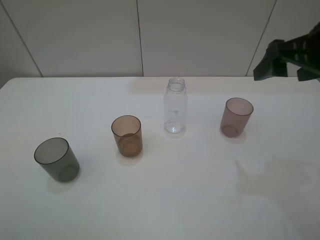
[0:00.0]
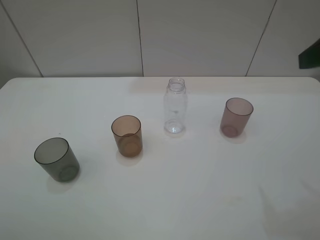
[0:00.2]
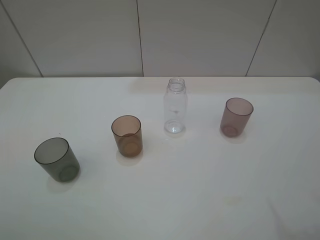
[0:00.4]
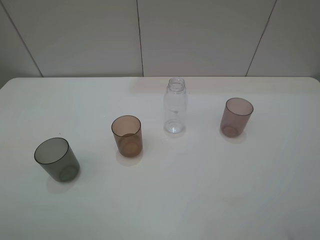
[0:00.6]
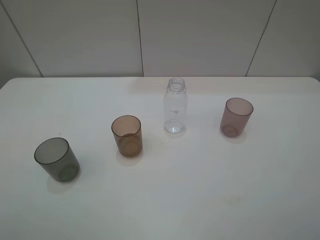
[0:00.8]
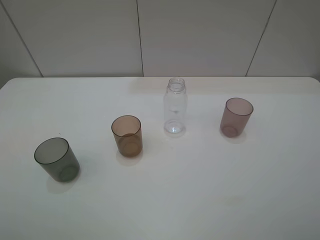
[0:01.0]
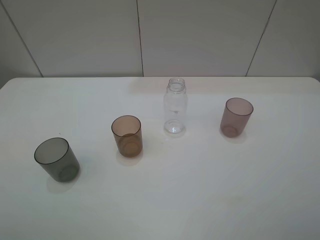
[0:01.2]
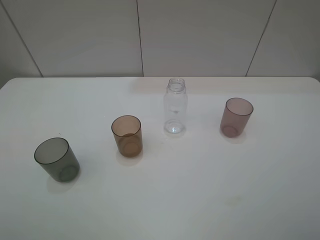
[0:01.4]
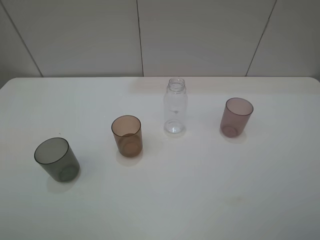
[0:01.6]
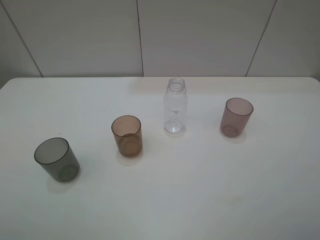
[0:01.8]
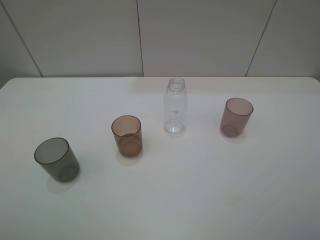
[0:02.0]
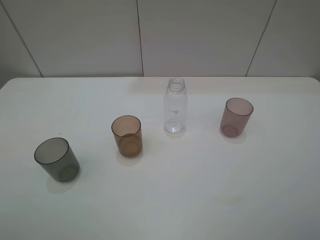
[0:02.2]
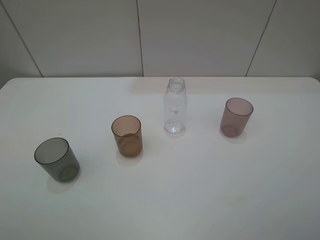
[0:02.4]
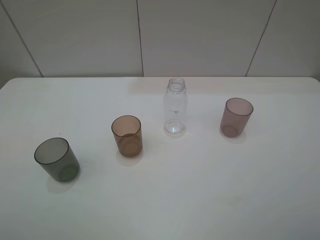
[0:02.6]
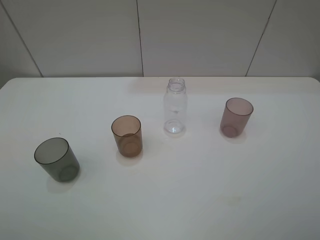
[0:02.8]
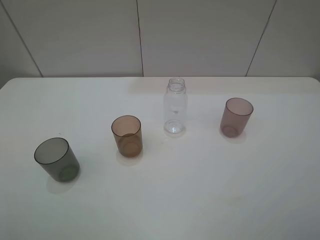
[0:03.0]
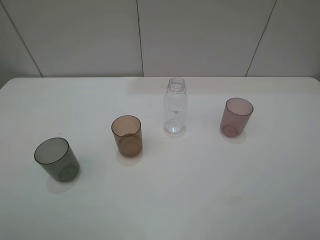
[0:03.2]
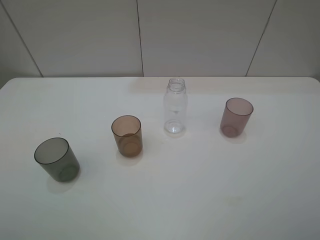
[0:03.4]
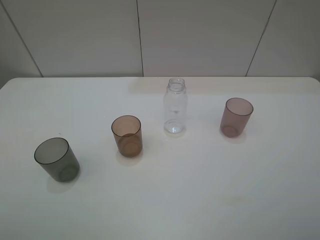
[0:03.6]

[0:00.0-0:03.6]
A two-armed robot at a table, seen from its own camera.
Task of the whole recording: pick up the bottle filled with water and pour water into the middle cup of the three cups.
0:00.0 to 0:01.8: The right gripper heads backward, covering approximately 20 cm.

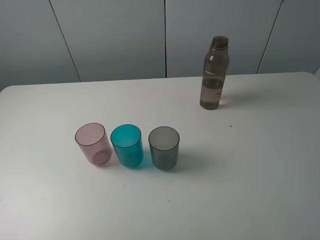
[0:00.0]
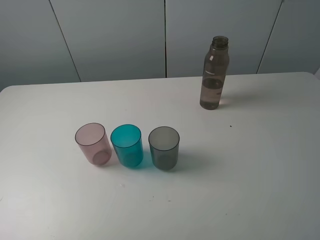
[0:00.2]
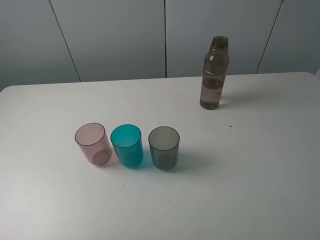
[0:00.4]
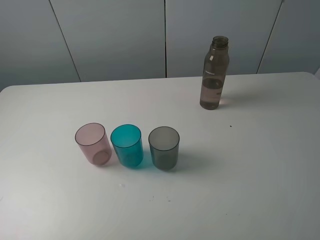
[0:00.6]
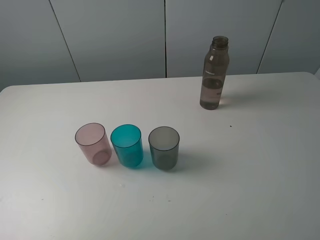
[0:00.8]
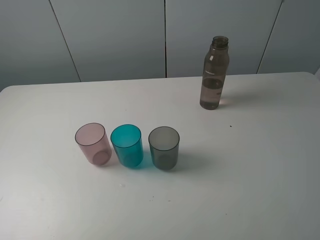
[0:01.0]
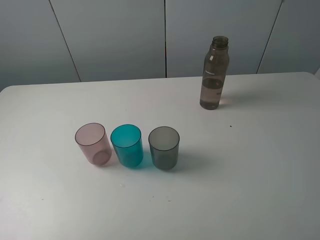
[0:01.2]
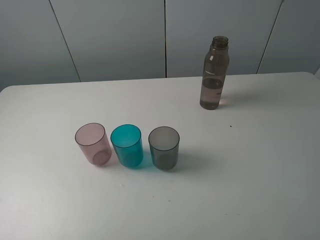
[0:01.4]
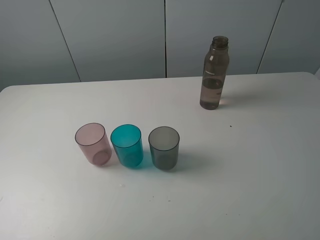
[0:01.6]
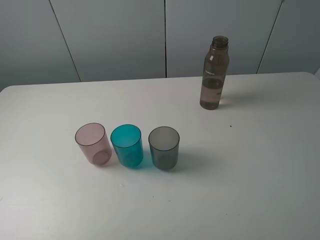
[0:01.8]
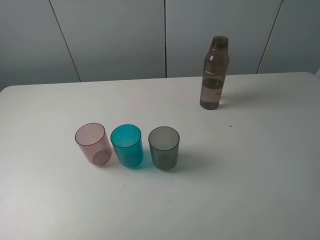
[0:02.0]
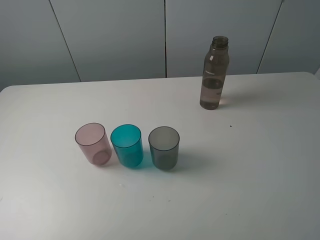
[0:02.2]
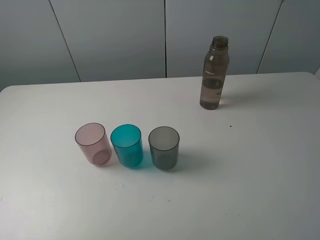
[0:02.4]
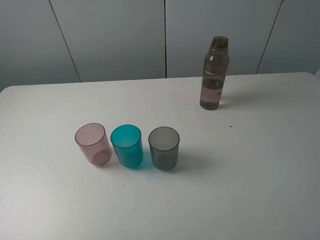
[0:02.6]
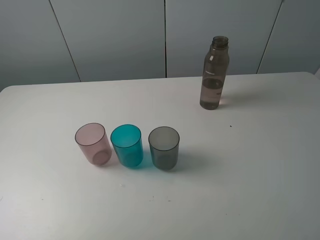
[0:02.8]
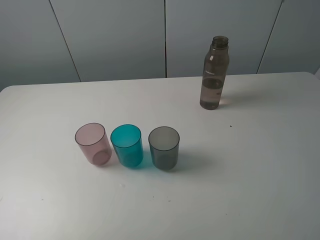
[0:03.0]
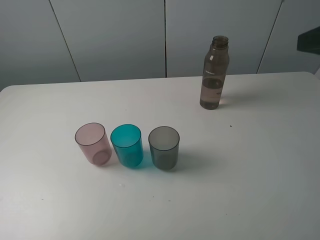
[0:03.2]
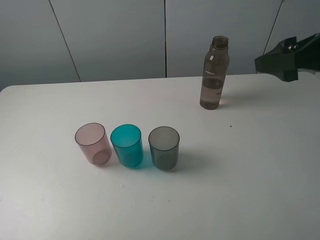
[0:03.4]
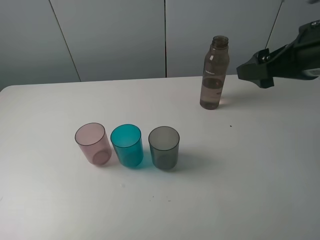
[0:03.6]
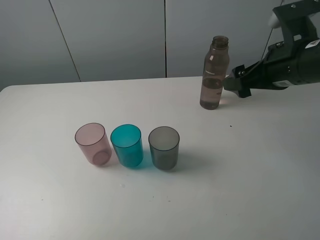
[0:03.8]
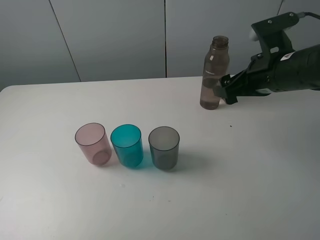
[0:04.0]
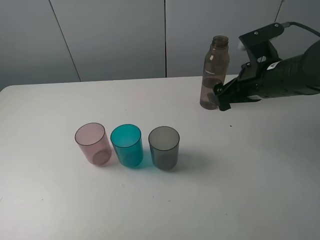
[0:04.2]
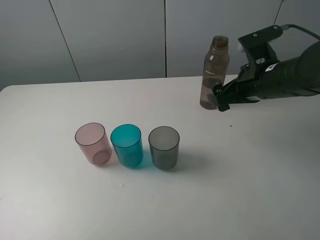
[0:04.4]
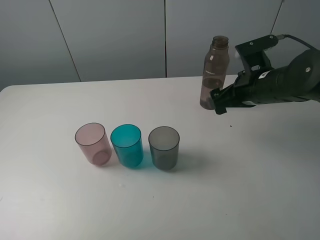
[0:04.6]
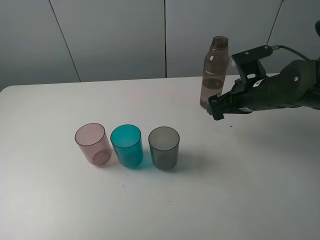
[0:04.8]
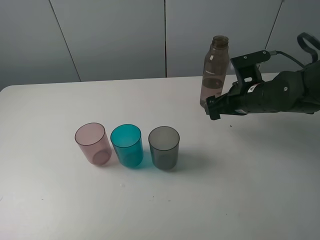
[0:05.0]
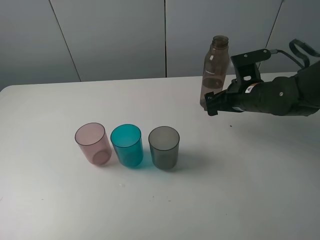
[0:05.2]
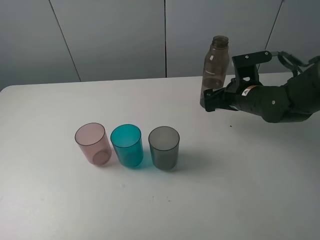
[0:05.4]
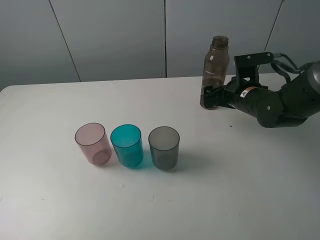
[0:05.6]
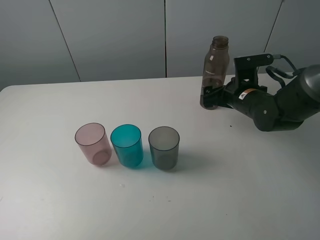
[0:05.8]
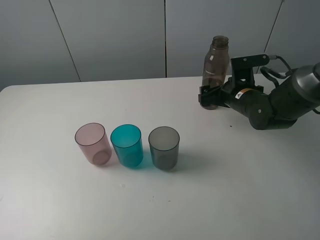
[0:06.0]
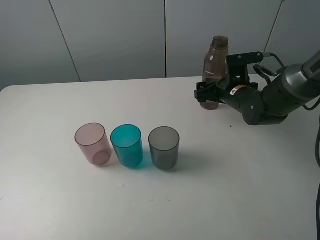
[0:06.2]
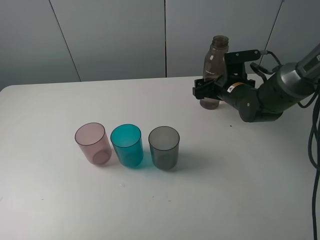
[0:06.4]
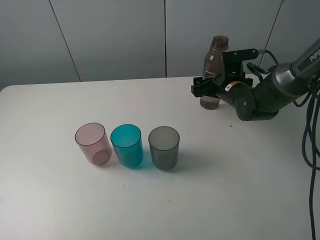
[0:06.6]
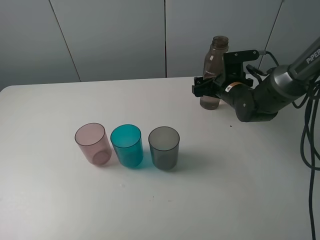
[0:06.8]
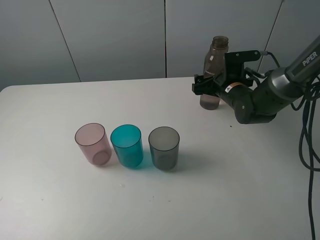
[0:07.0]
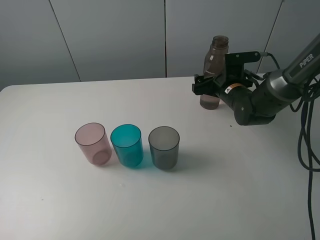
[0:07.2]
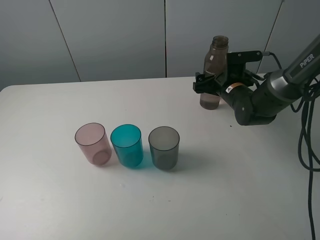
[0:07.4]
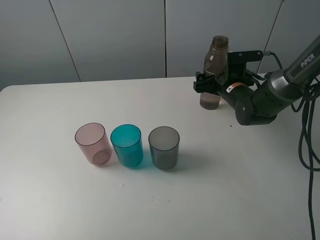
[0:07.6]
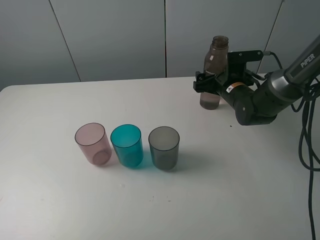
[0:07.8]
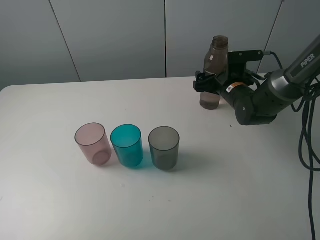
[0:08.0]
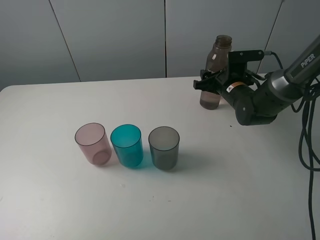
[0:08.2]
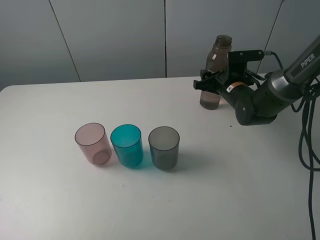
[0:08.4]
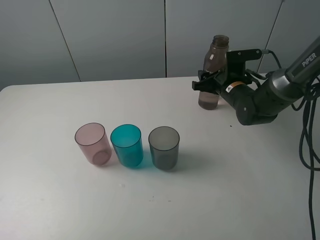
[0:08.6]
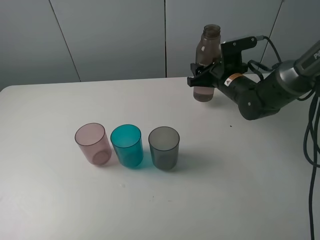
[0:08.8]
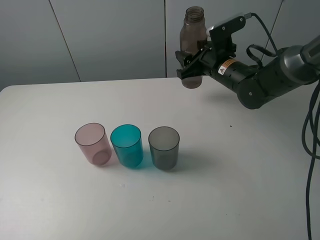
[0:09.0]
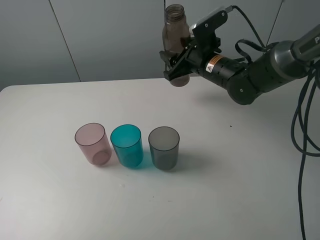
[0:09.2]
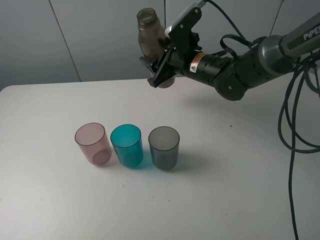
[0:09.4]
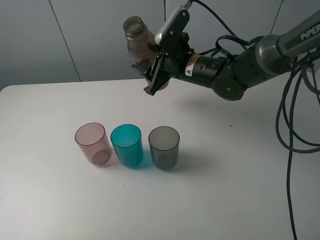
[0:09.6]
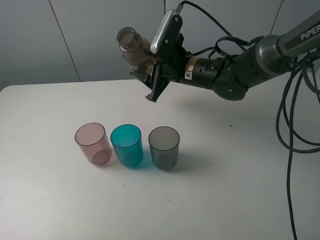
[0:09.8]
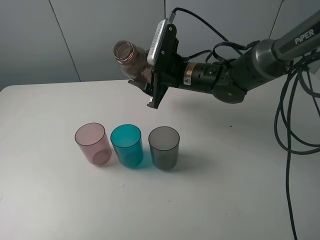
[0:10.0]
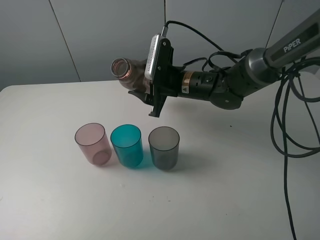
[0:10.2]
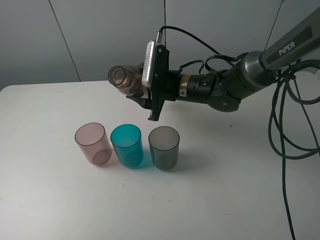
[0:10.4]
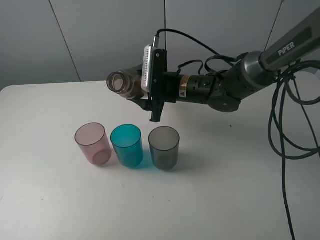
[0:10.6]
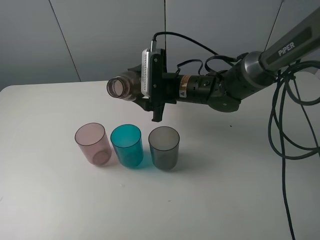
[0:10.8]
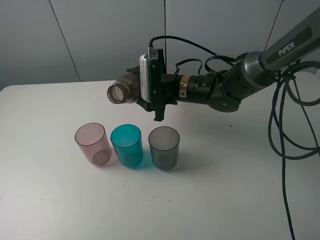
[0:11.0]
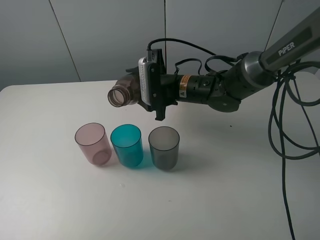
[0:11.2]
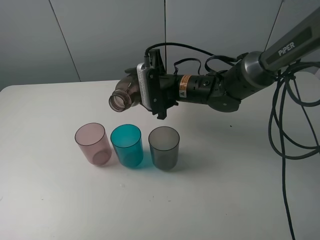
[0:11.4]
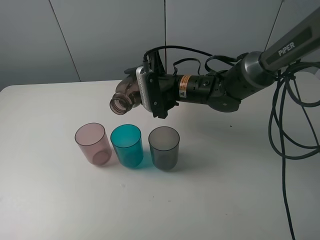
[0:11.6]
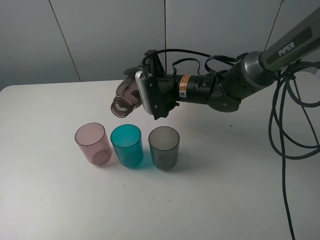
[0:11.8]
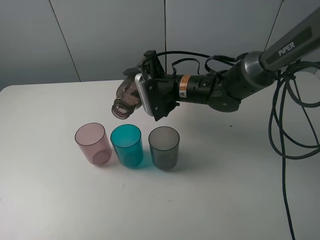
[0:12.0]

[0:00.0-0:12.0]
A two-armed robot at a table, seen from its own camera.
Task of the whole recording: pick up the bottle filled with water and pour water into the middle cup of the three cups.
Step, 0:00.0 to 0:08.0: Grasp the transparent bottle with the right gripper.
Step, 0:08.2 to 0:12.0: Pour water from transparent bottle to blue cup with the right gripper.
0:00.0 to 0:01.6: Both grippers stay about where they are.
0:03.0 to 0:04.4: The right gripper shifts approximately 20 cm downward, forward and to the left.
0:04.4 to 0:06.0: The right gripper travels downward and forward by about 10 cm.
0:06.0 to 0:07.6: The grippers make only small movements.
0:07.6 to 0:09.0: The right gripper shifts approximately 5 cm upward, and closes.
0:09.0 to 0:10.4: The right gripper goes roughly 10 cm to the left.

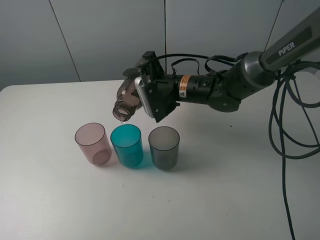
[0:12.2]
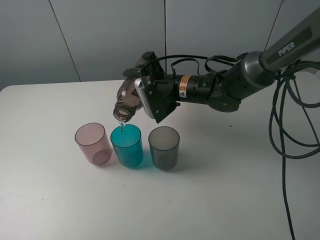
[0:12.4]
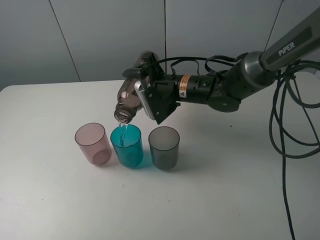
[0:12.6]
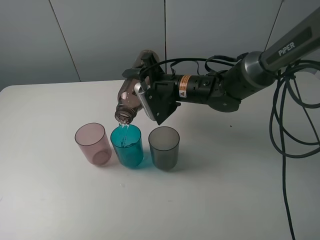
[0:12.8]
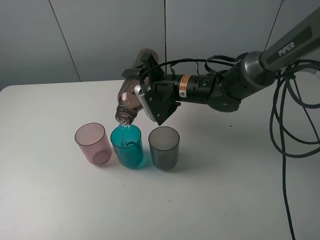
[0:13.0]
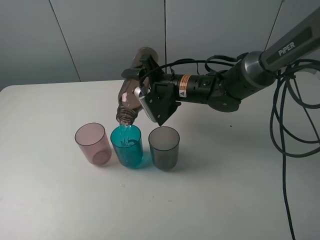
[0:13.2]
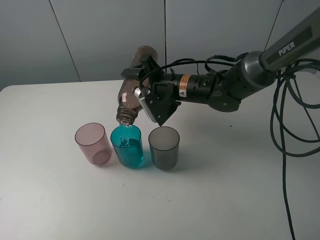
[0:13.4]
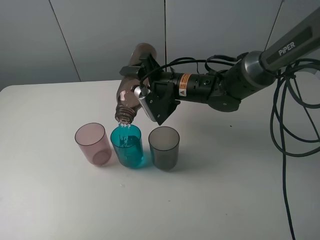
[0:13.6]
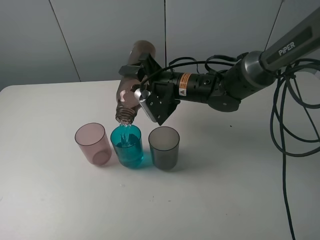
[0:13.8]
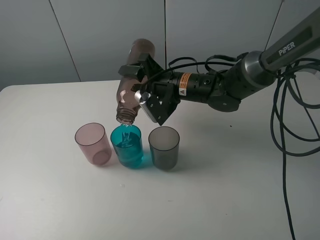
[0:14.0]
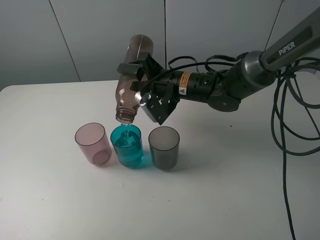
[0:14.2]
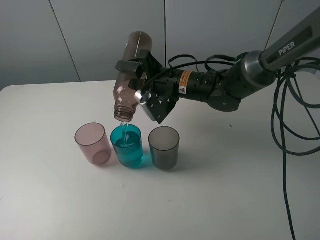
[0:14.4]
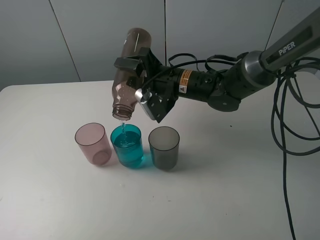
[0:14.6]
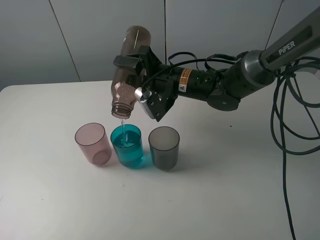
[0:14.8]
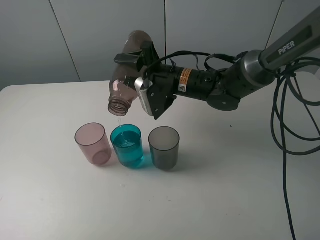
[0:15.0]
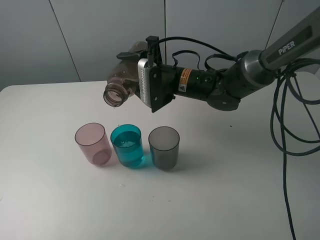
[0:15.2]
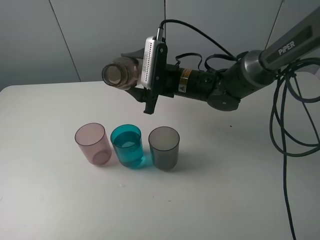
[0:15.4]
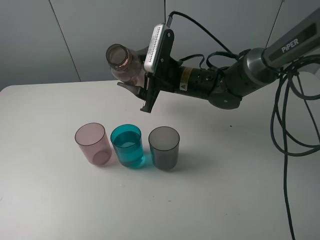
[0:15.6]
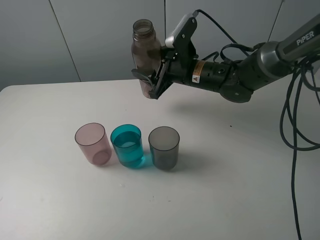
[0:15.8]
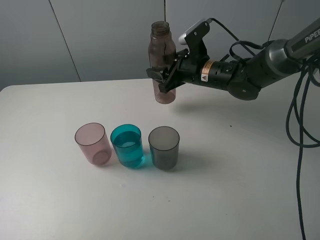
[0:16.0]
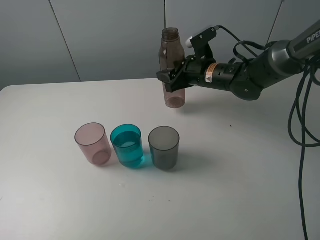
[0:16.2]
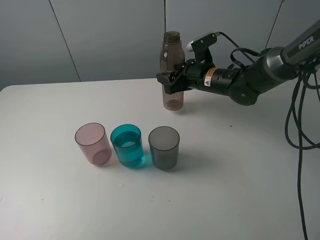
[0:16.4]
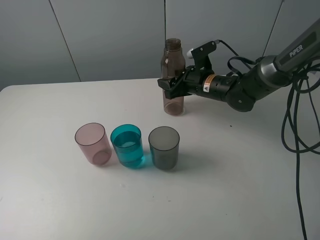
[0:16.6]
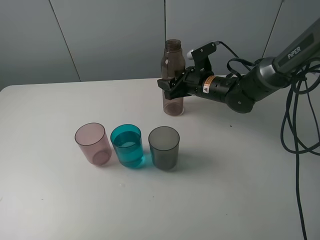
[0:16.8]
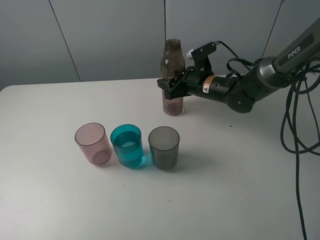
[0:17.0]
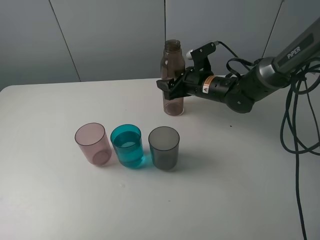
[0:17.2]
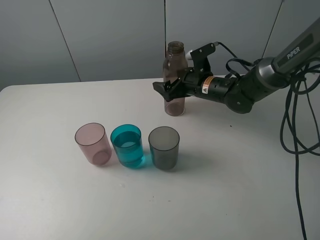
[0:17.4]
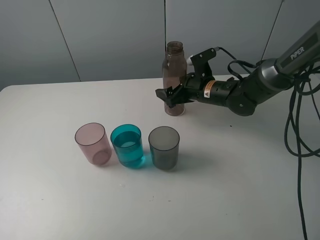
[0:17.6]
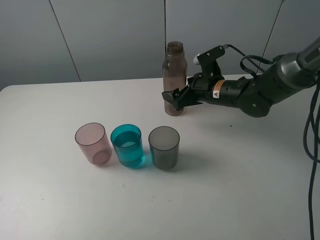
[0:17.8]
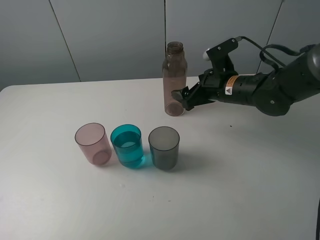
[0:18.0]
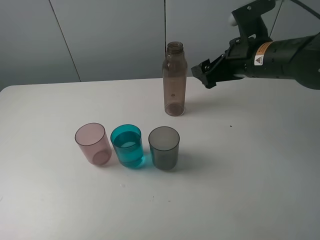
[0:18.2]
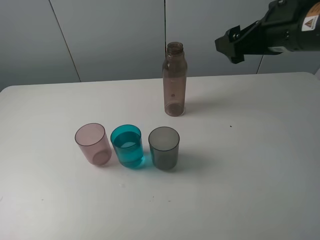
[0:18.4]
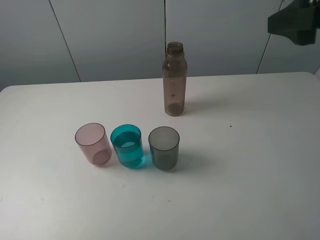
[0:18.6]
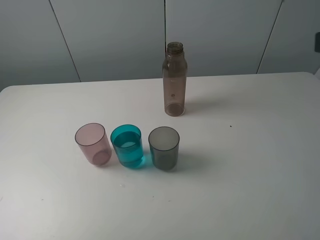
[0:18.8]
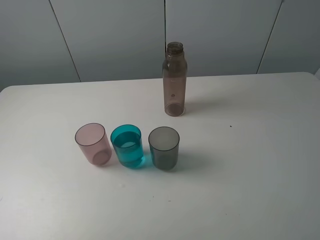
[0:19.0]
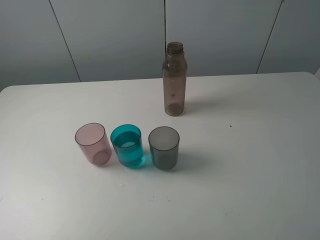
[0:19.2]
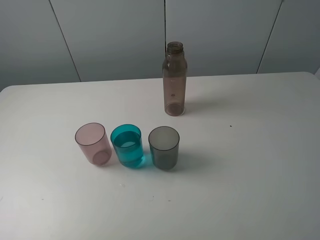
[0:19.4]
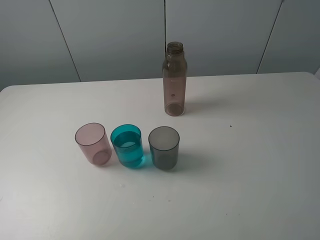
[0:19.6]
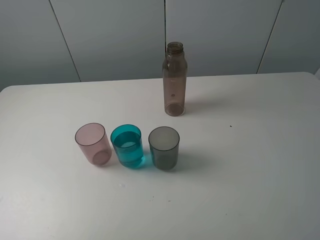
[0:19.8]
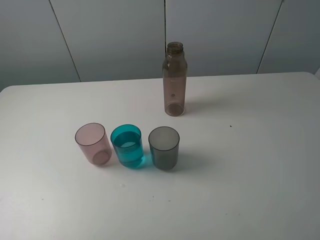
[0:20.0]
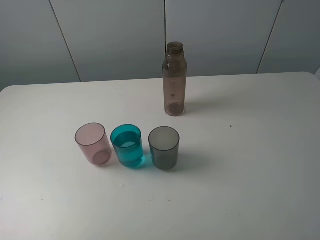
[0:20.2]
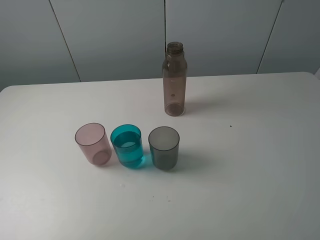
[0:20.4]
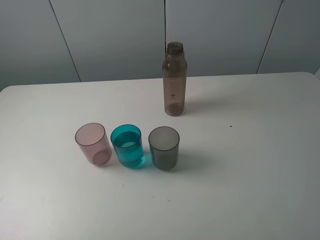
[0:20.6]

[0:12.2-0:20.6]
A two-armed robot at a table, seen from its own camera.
Task of the whole recording: pick up the bottle filled with water and pour water into the middle cup of the three cups.
Step, 0:12.2 to 0:18.2: Place the brown bottle with the right gripper.
0:12.2 to 0:13.6: The grippers move only a little.
0:13.6 to 0:15.0: There are only small adjustments of the grippers.
0:15.0 to 0:16.4: The right gripper heads to the right, covering roughly 5 cm.
0:16.4 to 0:17.8: The right gripper opens its fingers.
0:17.8 to 0:19.2: The right gripper heads backward, upward and to the right, covering about 50 cm.
